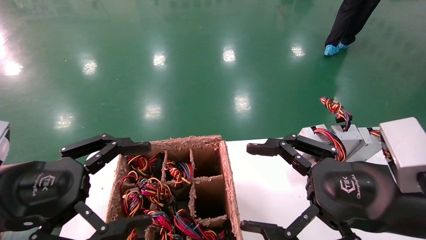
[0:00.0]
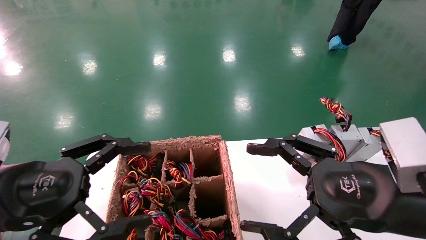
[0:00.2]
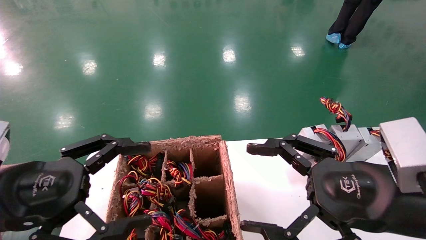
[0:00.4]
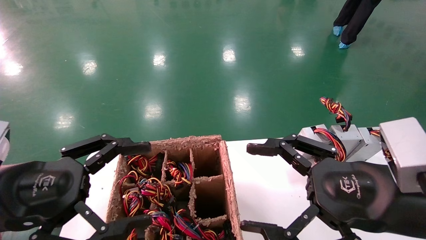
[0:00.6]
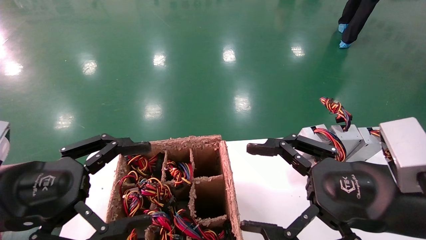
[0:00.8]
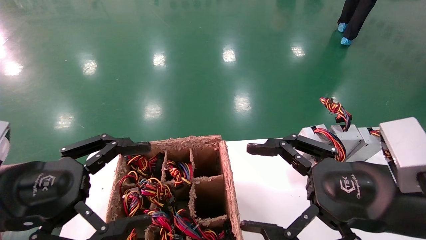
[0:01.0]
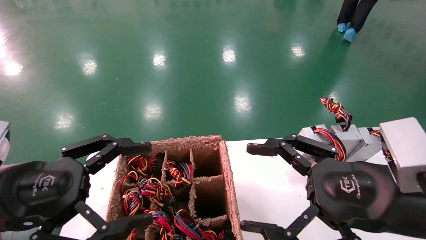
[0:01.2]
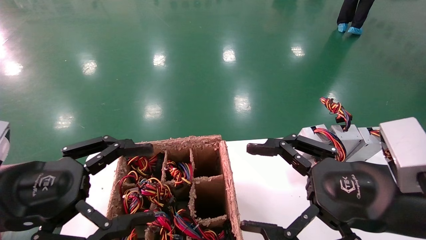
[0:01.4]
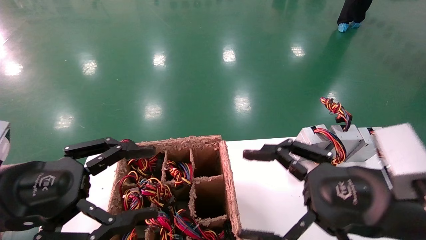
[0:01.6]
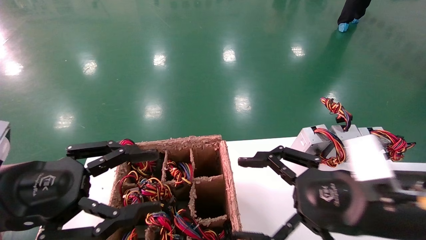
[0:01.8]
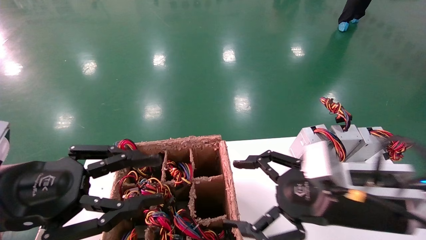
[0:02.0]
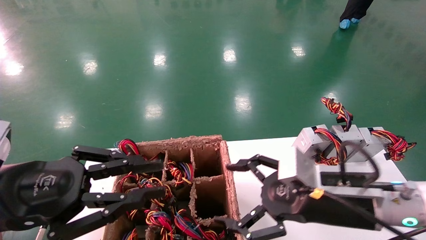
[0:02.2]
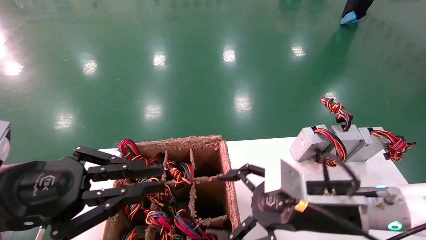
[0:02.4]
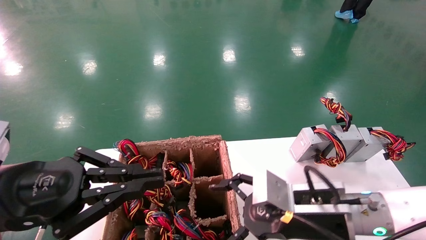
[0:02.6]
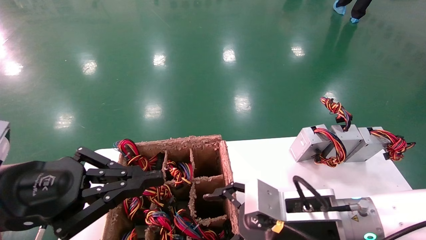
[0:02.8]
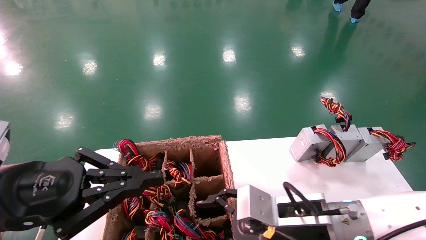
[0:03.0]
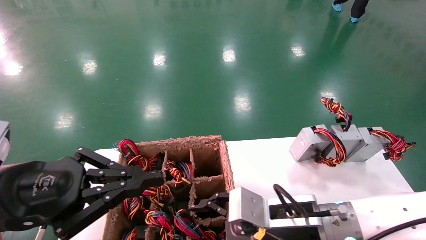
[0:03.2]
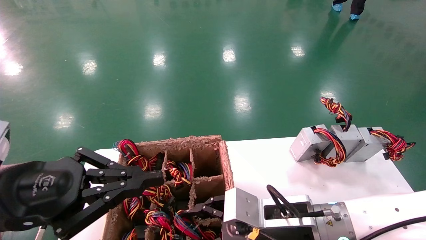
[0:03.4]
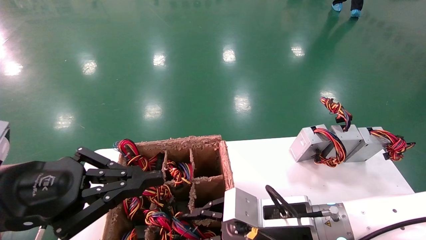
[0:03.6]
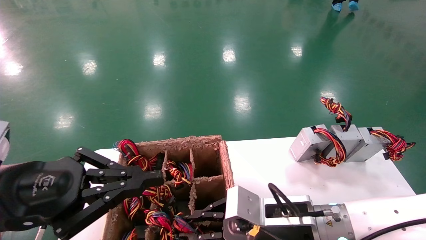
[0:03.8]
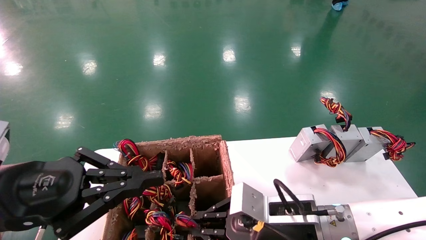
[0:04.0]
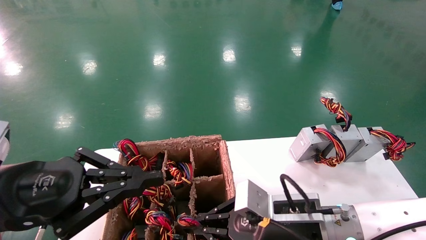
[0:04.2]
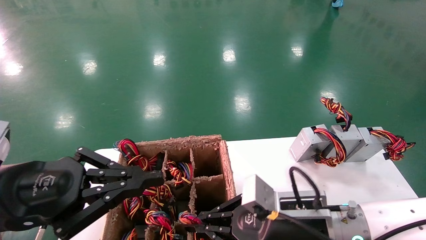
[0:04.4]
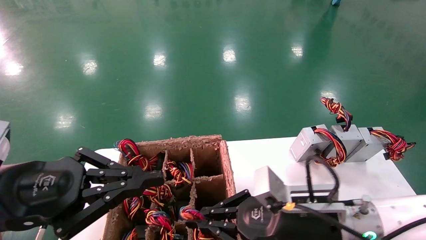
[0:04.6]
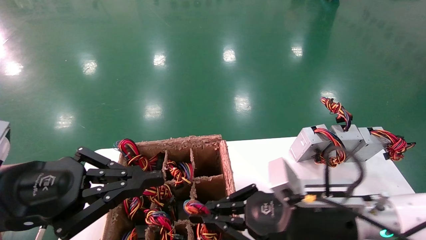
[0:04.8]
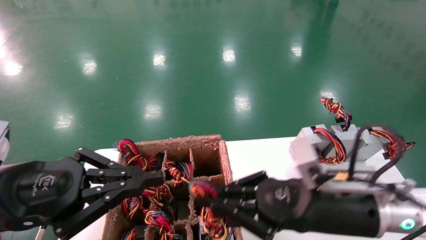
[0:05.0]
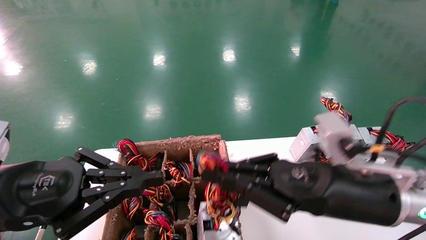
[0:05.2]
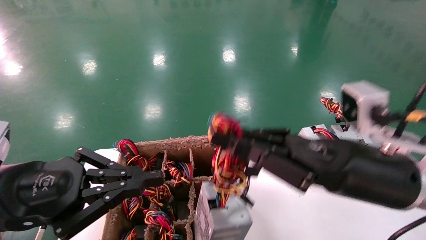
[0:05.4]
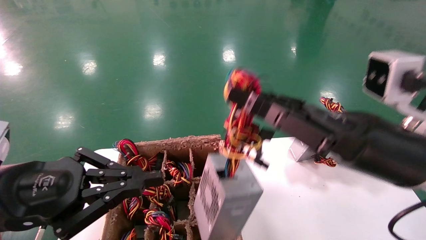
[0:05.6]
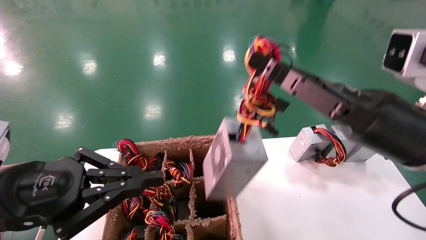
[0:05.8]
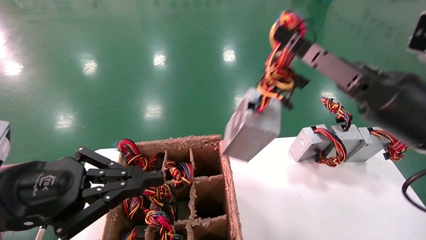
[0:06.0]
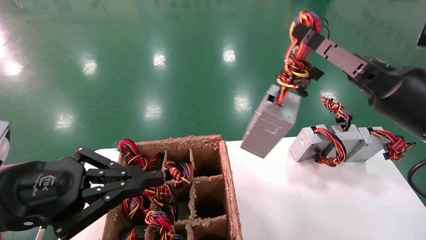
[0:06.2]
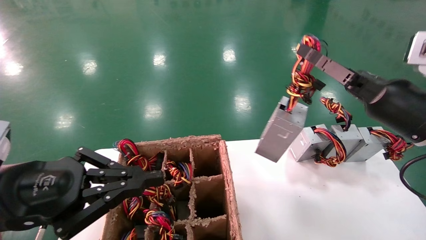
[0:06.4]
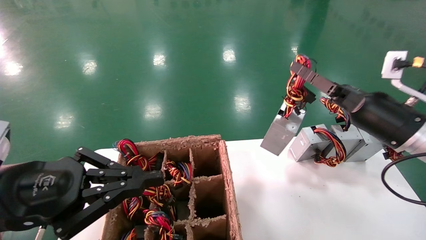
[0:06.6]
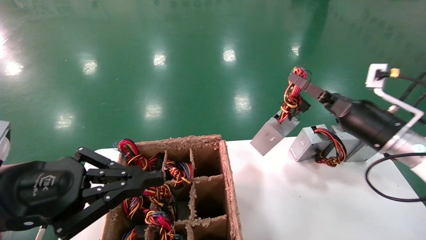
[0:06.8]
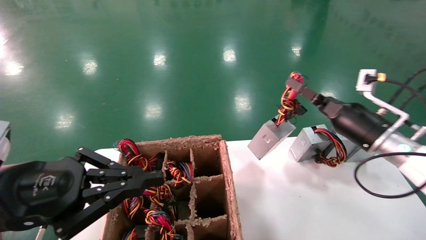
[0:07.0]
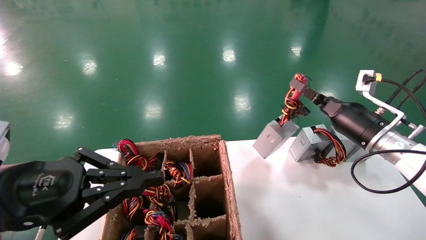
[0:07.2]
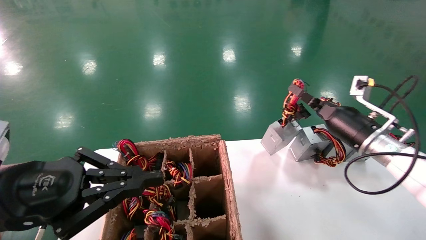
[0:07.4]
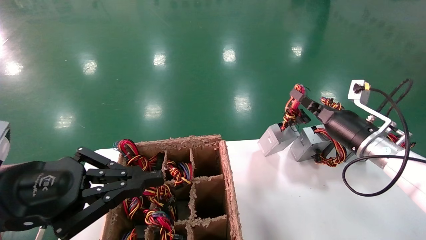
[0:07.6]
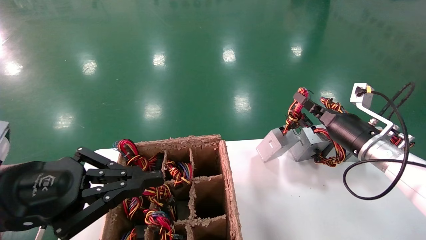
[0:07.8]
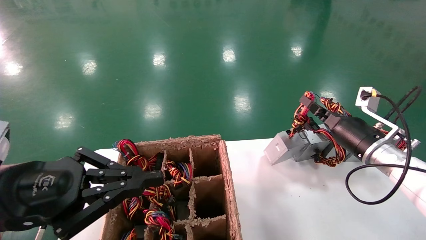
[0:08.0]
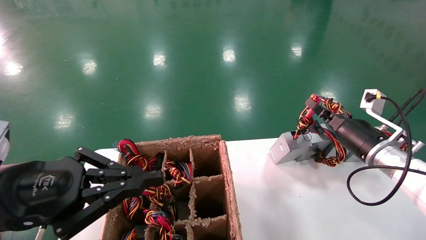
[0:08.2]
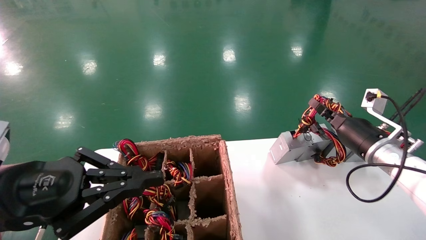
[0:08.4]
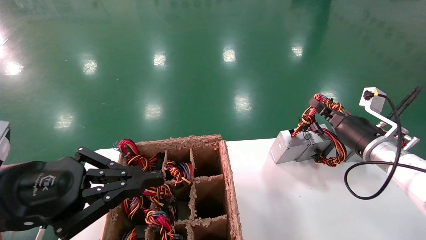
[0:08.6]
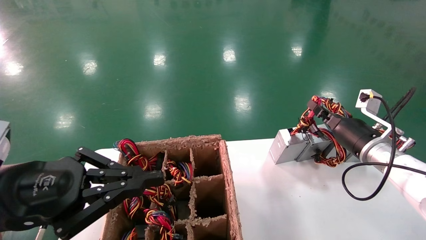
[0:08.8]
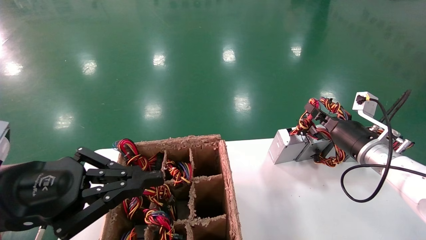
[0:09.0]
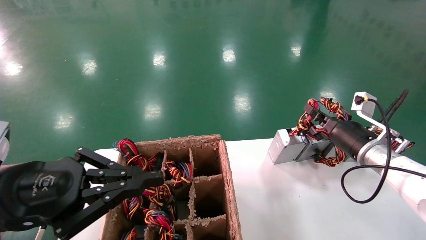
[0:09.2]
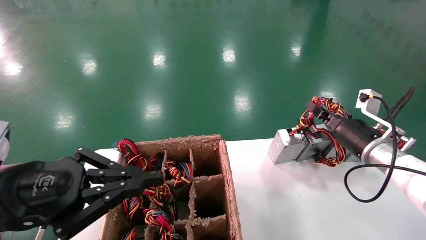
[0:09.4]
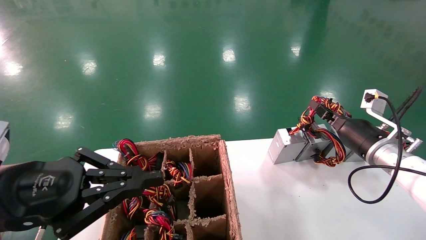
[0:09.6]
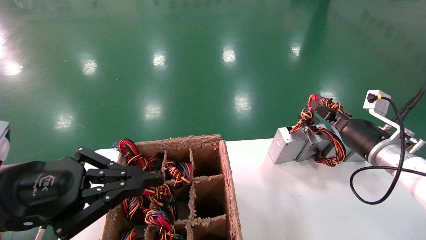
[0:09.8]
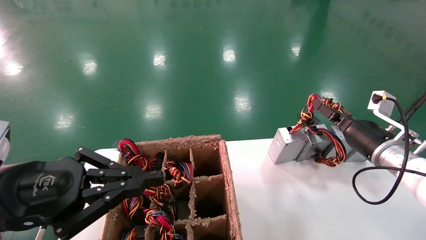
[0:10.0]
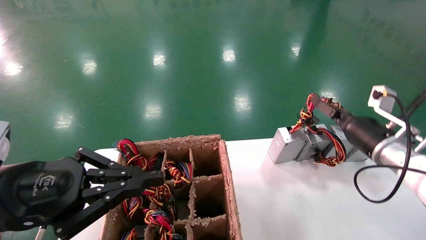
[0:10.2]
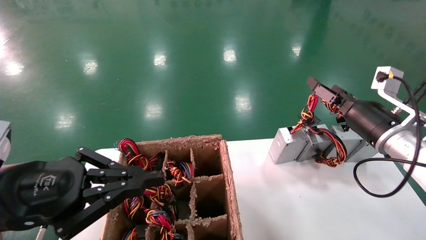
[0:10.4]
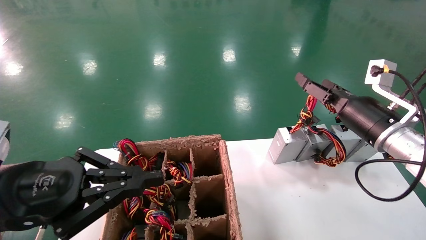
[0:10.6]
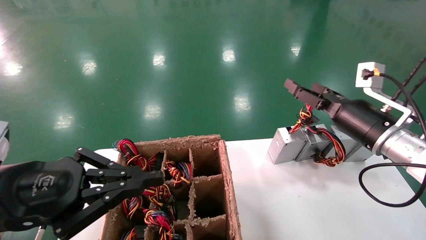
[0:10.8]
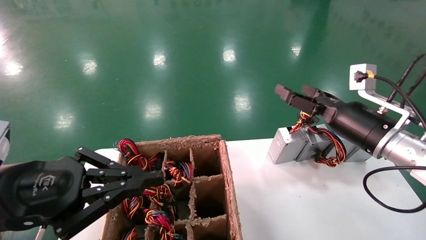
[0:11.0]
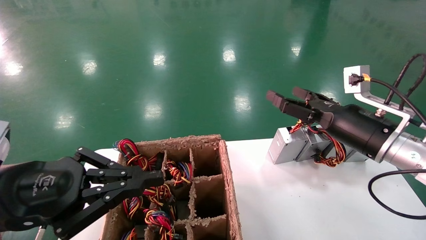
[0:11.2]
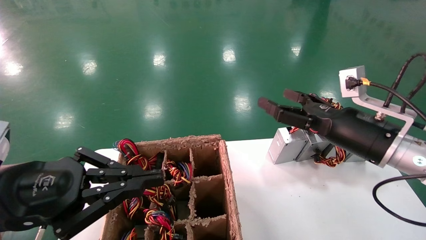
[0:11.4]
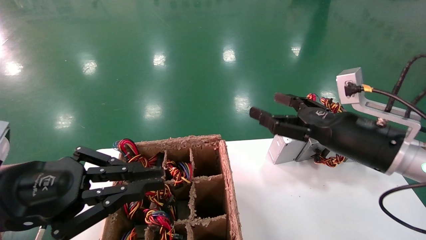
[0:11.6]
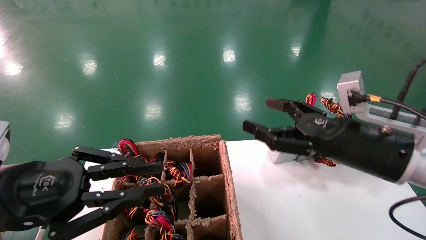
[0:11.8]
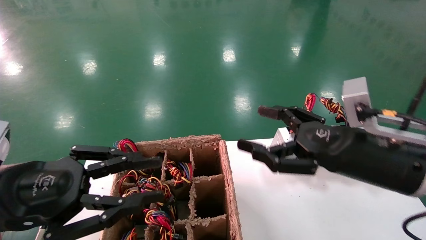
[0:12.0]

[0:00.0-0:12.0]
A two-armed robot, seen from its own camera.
Step, 0:02.0 to 0:04.0: Grab the main unit power supply from the containment box.
Step, 0:04.2 to 0:10.0: Place the main unit power supply in the designated area.
0:00.0 to 0:01.6: Neither gripper changes place.
0:01.6 to 0:03.0: The left gripper closes up; the right gripper moves downward, to the left and forward, some 15 cm.
0:03.0 to 0:04.4: The right gripper closes its fingers.
0:04.4 to 0:06.0: The right gripper travels upward and to the right by about 20 cm.
0:06.0 to 0:07.6: The right gripper shifts some 15 cm forward and downward.
0:07.6 to 0:09.0: There are only small adjustments of the grippers.
0:09.0 to 0:10.4: The right gripper ends up some 5 cm from where it was, and opens up.
0:10.4 to 0:12.0: The right gripper shifts about 15 cm backward and to the left.

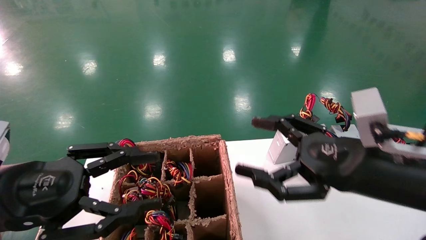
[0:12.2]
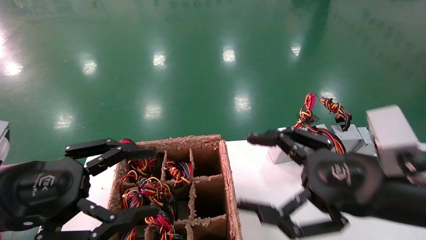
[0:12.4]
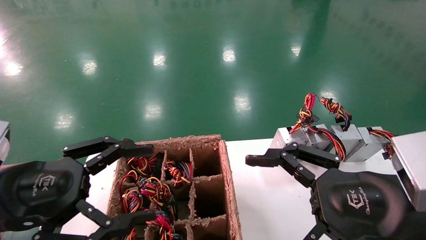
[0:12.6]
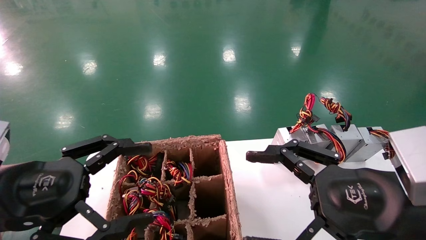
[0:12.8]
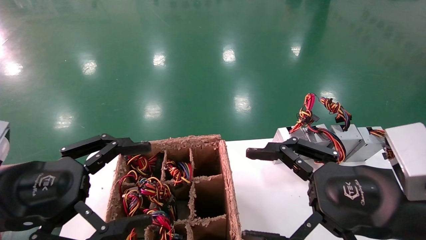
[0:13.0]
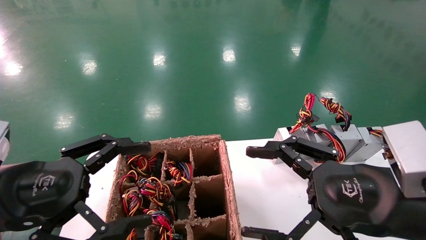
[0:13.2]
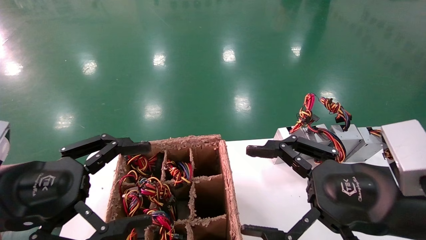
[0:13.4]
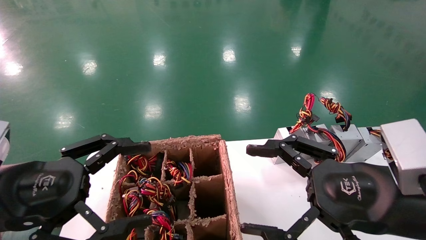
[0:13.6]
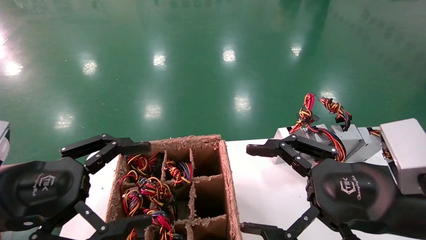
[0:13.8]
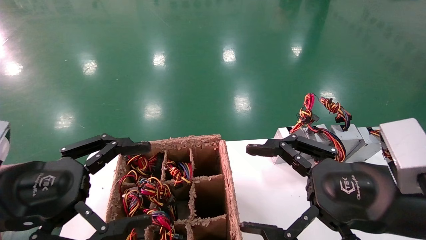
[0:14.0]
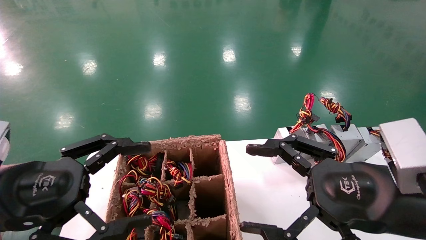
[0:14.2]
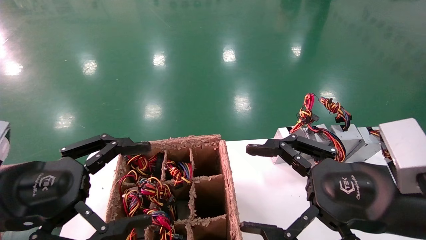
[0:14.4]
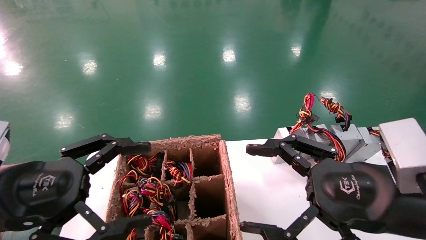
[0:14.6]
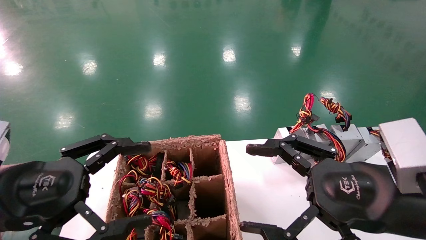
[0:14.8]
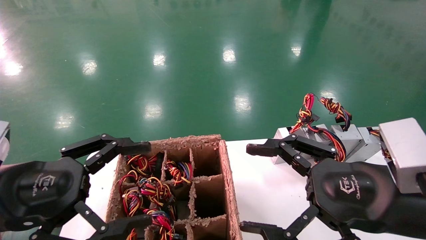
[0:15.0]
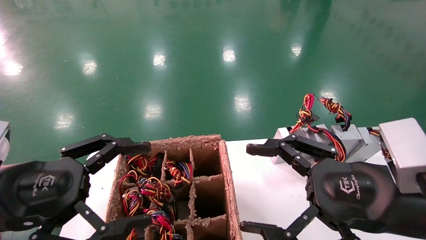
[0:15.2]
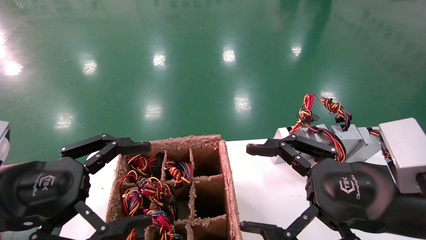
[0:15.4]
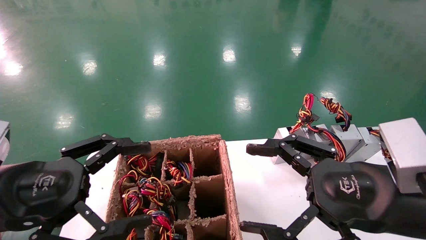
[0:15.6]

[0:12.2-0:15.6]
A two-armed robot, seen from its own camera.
0:12.2 to 0:13.8: The left gripper opens up.
0:13.8 to 0:15.6: The two grippers keep their place.
